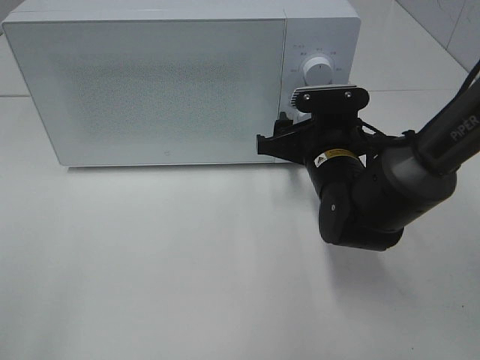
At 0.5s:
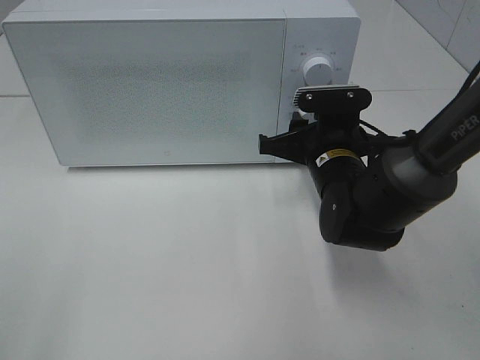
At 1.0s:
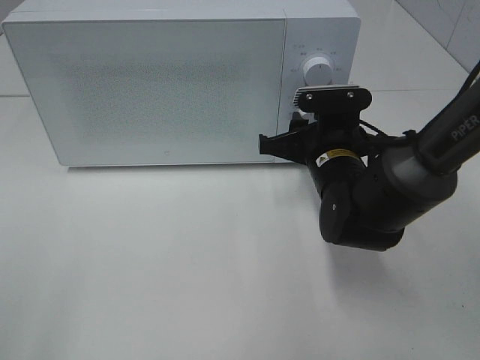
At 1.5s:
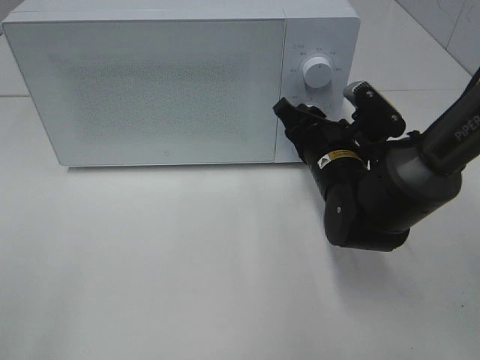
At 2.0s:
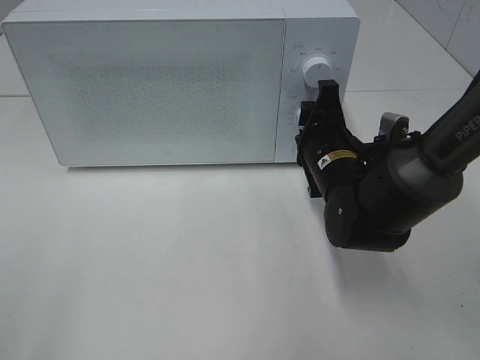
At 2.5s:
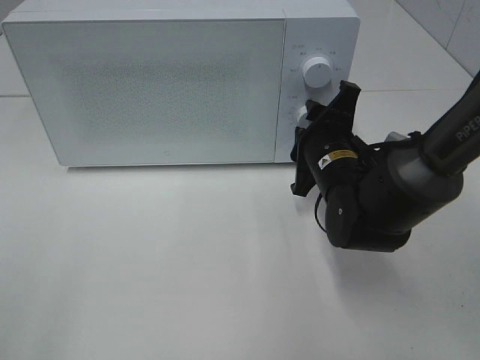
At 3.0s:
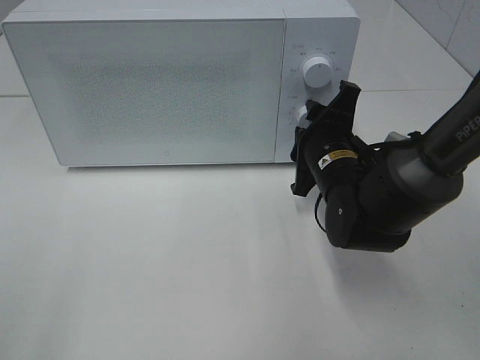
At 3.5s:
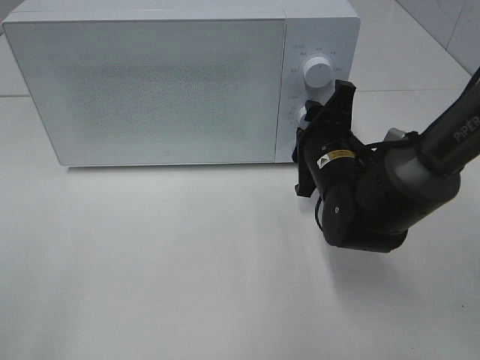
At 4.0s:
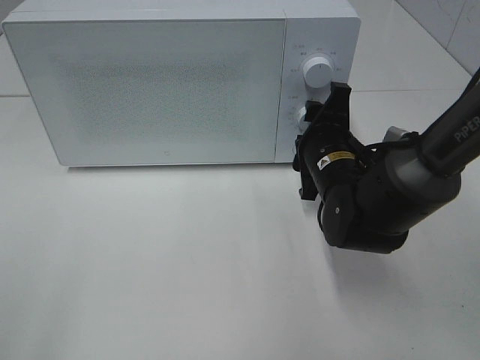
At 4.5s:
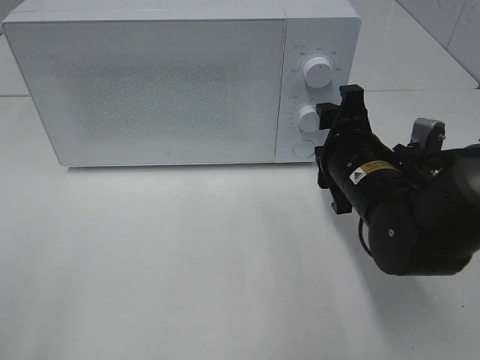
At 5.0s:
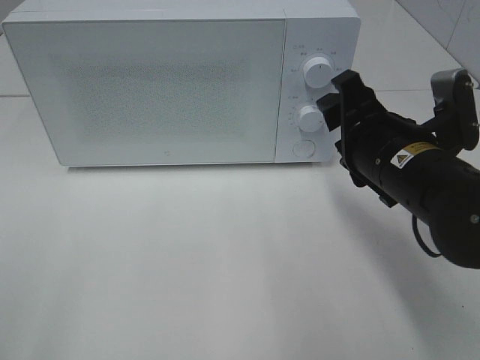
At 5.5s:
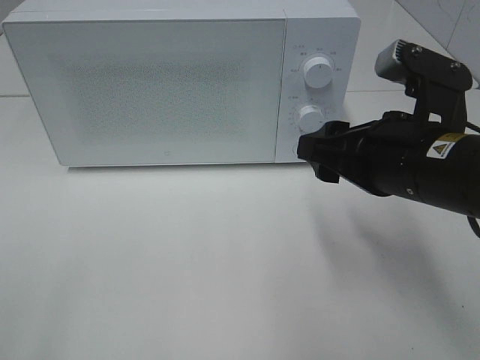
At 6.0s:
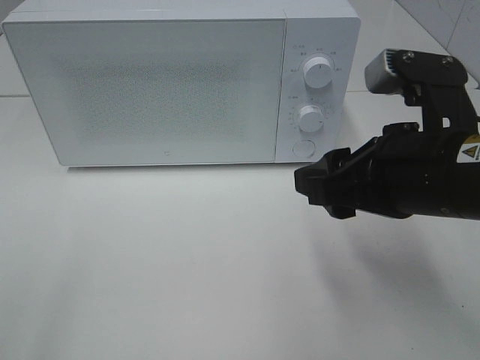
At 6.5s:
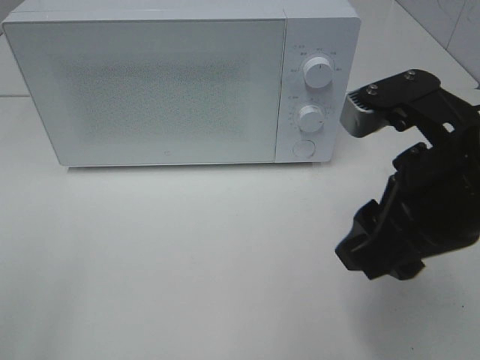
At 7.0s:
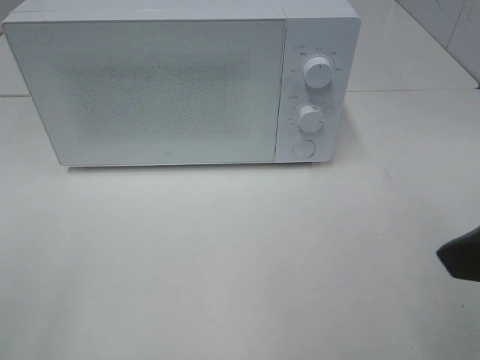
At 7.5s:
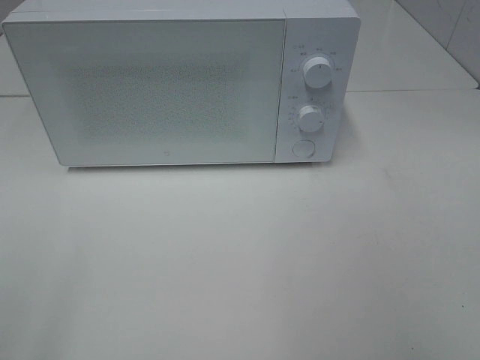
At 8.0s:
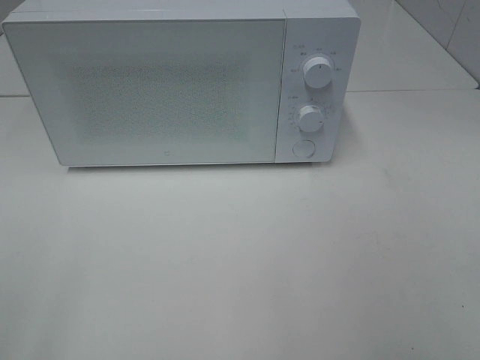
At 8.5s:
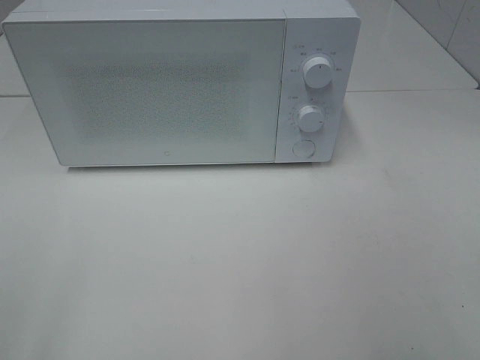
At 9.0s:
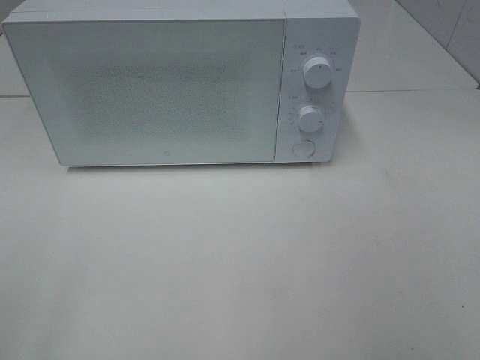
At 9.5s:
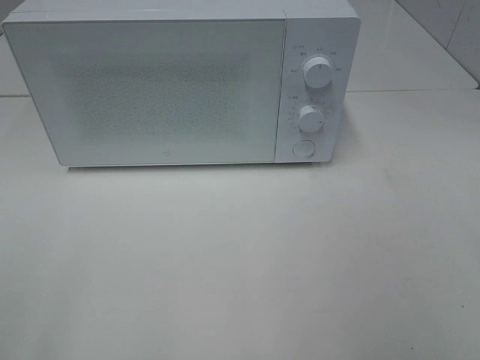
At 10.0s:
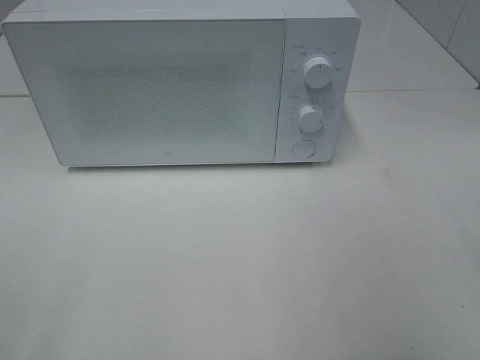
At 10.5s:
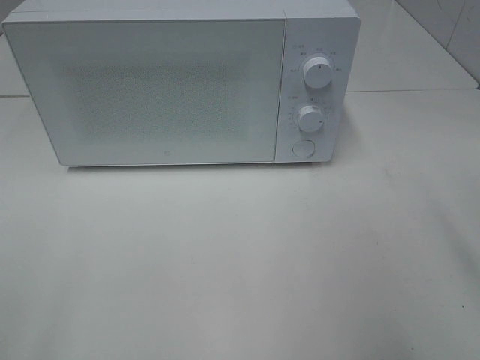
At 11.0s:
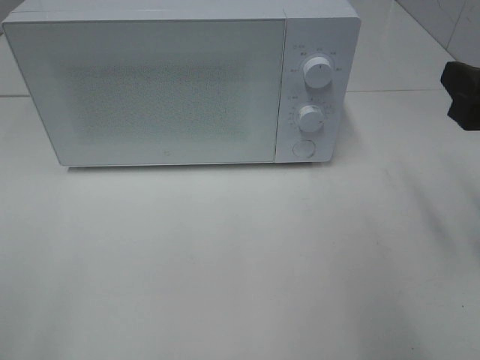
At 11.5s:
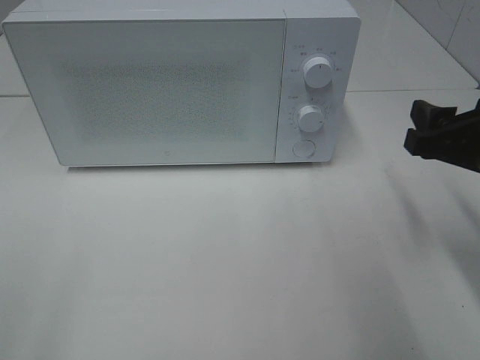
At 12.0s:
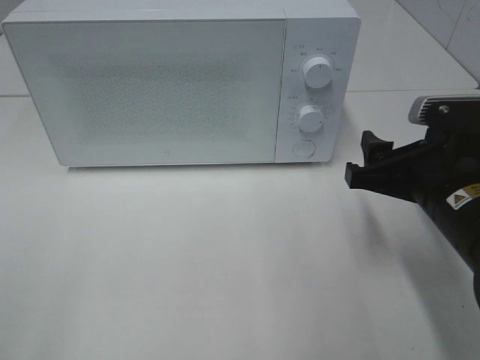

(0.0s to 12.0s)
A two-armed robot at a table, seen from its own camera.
Task of the whole recording: Heat the burger.
Step, 0.0s - 4.0s: Right hand: twist timer button.
2.0s - 4.0s: The grippers make only small movements.
4.0s - 6.0s: The right gripper heads backward and upward, covering approximately 20 cm.
6.0s - 8.0s: The right gripper is displaced backward and to the right by about 20 cm.
10.0s - 12.0s: The right gripper is displaced downward, forward and to the left by some 20 cm.

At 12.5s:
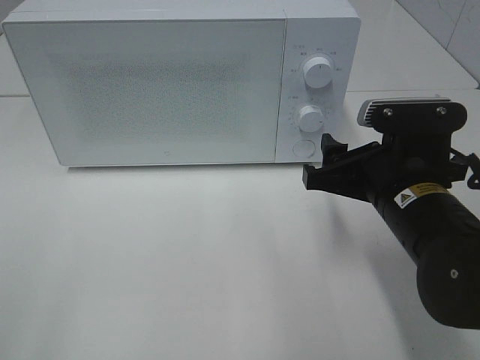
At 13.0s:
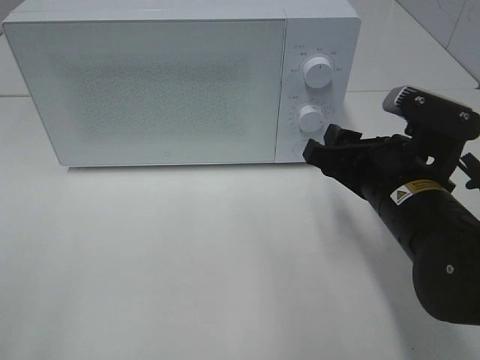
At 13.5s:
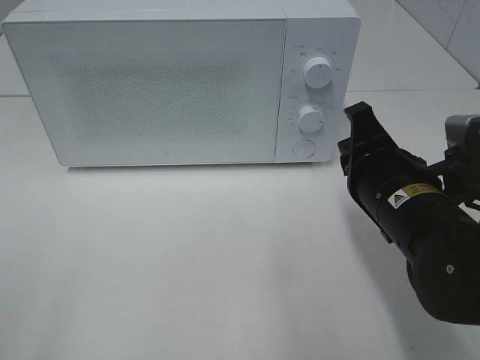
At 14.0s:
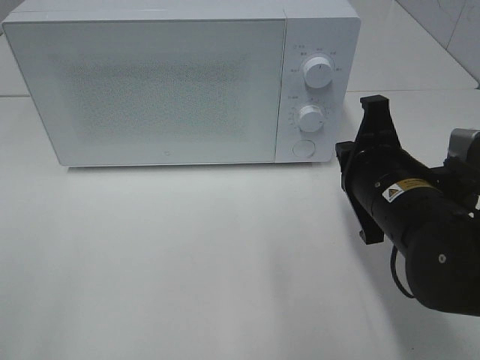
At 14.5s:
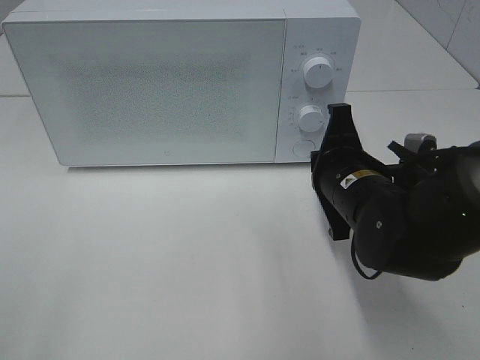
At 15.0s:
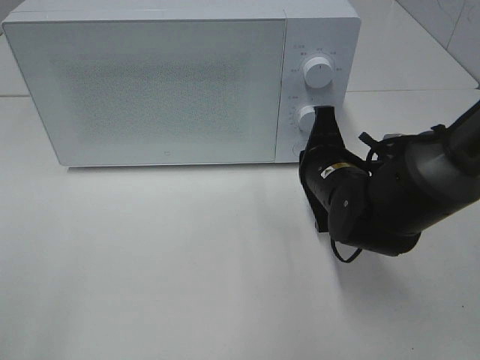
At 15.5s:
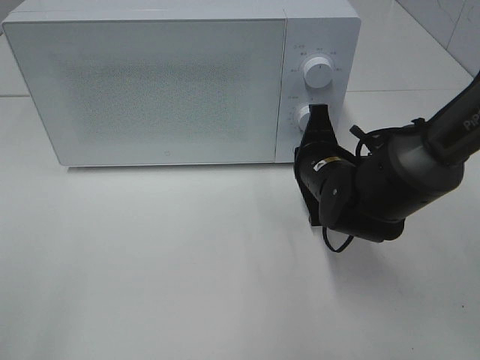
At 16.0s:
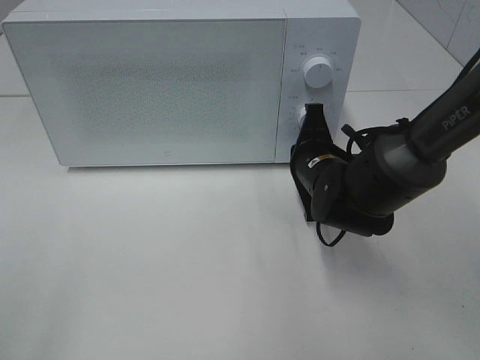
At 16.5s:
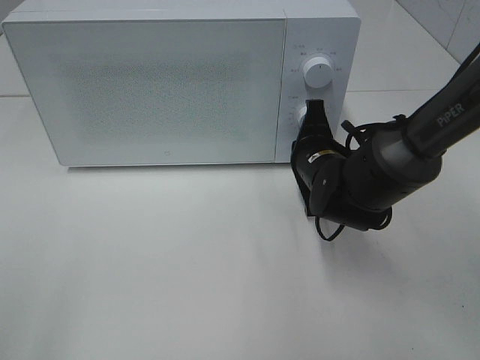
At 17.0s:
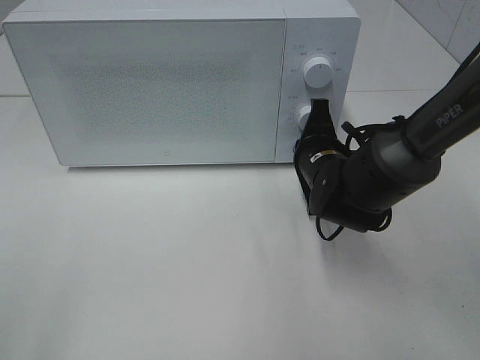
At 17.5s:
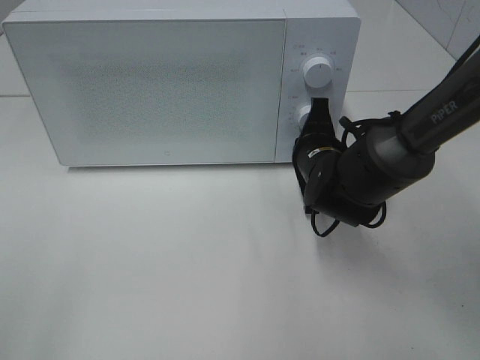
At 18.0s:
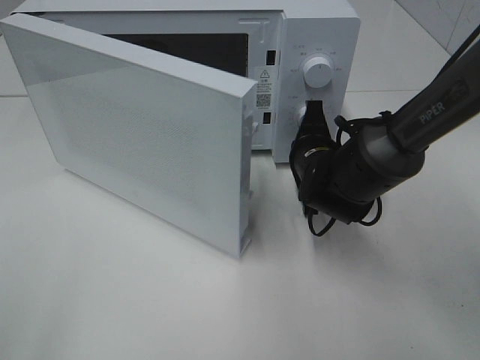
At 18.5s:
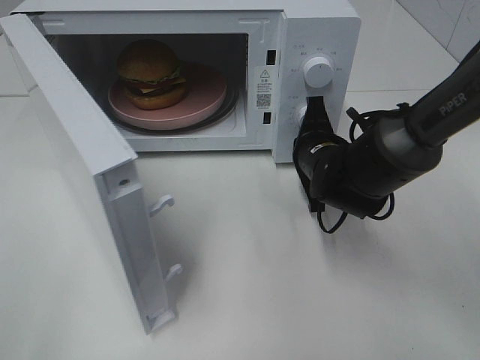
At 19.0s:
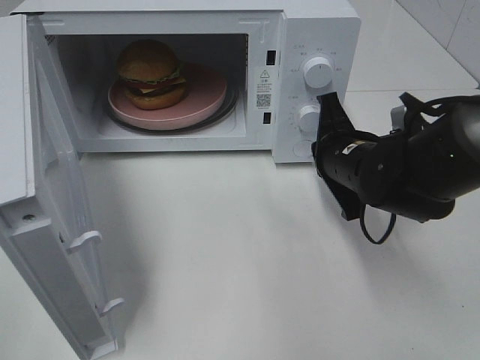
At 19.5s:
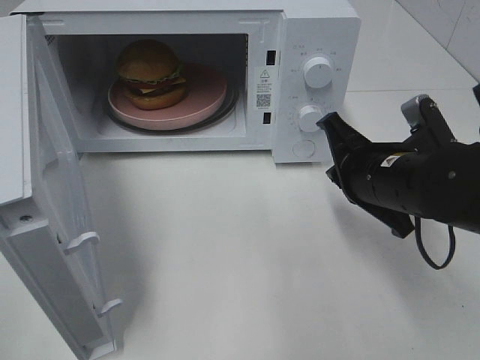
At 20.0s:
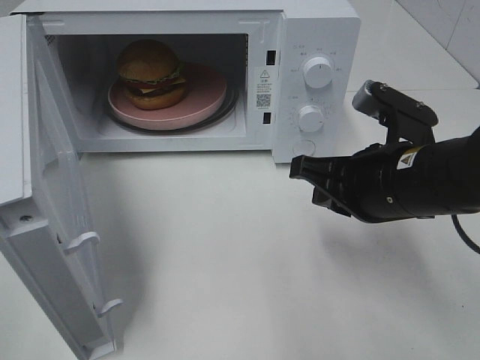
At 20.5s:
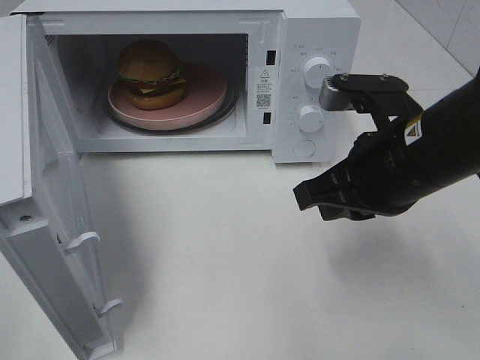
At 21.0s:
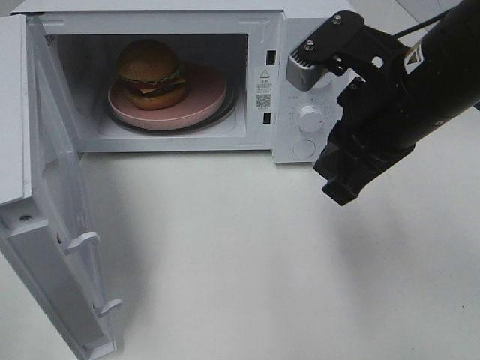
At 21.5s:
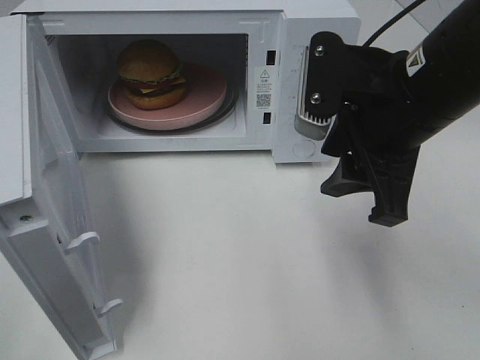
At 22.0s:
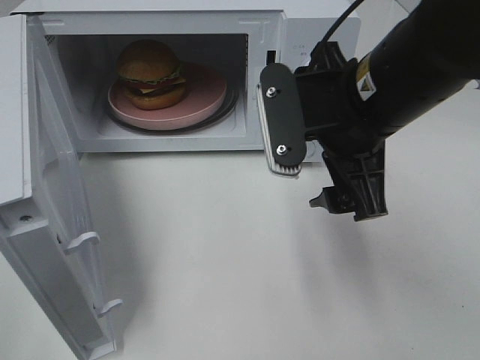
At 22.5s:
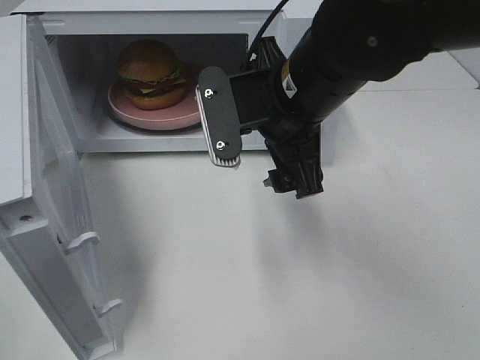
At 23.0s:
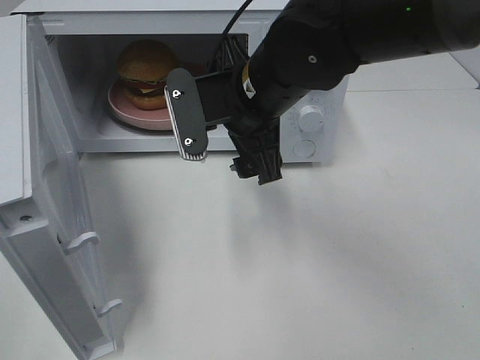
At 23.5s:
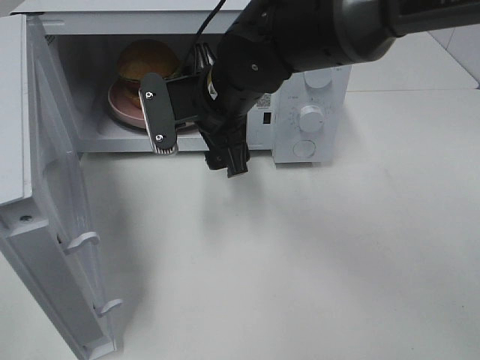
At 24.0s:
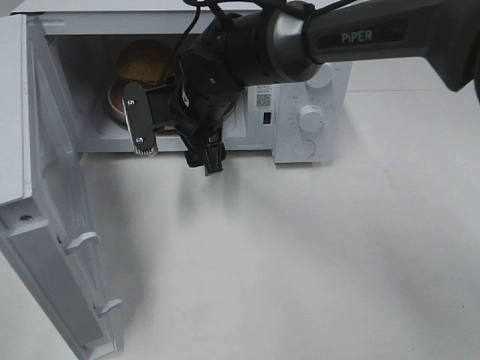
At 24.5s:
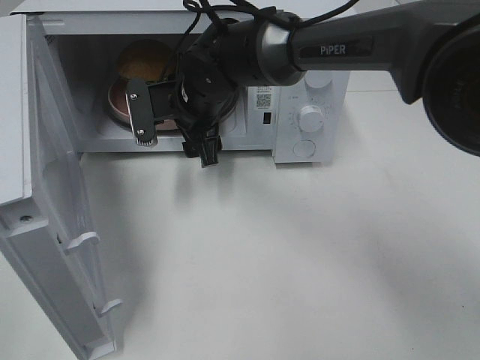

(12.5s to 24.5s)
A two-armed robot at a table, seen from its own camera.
Task of the whole recording: Heat the burger.
Step, 12.5s - 18.5s: Right hand: press the switch.
12.5s - 14.5s: The right gripper shifts by roughly 5 cm, and closes its fingers.
14.5s - 16.5s: The right gripper goes roughly 5 cm forward.
18.5s - 20.5s: The right gripper moves upward and backward, some 20 cm.
20.5s - 22.5s: The right gripper travels to the left by approximately 10 cm, and opens its fingers.
22.5s - 24.5s: The right gripper moves forward, to the left and downward, about 20 cm.

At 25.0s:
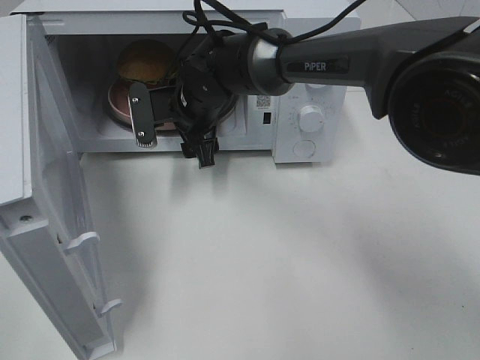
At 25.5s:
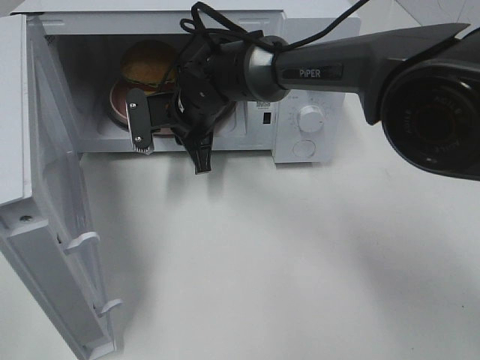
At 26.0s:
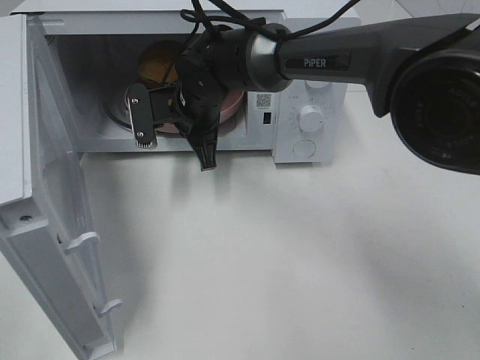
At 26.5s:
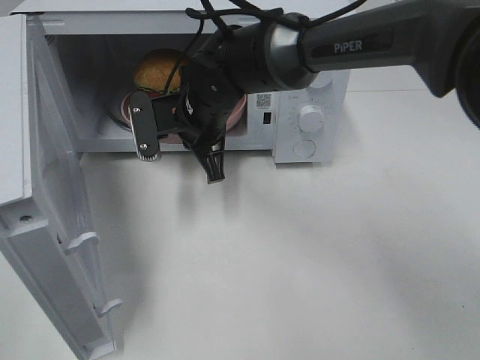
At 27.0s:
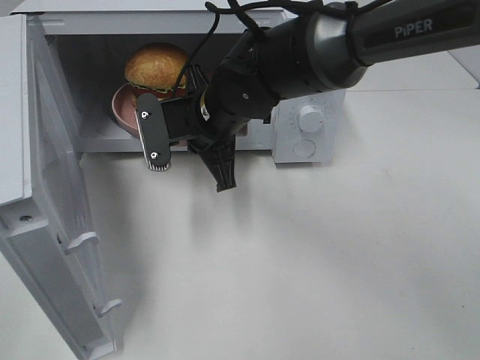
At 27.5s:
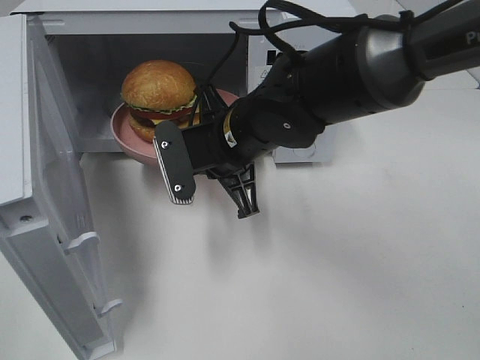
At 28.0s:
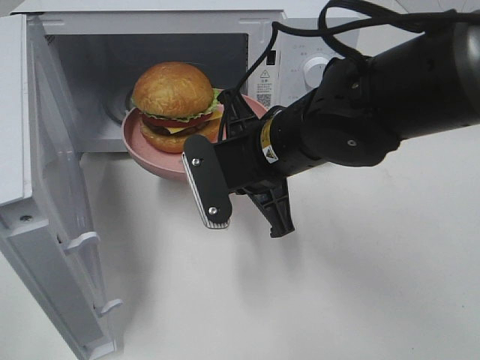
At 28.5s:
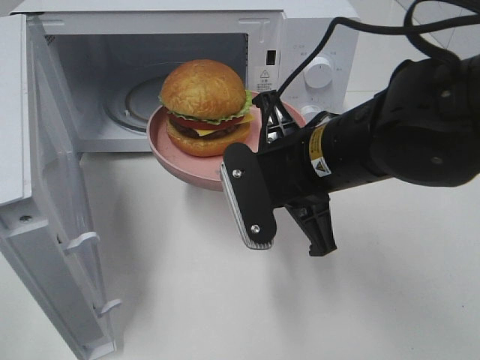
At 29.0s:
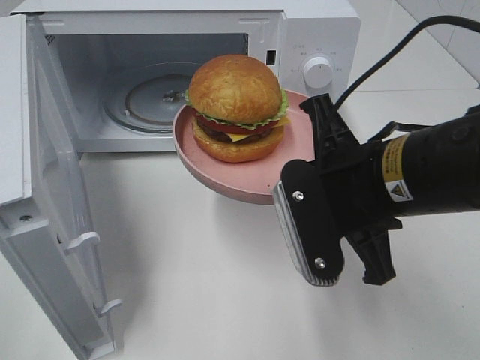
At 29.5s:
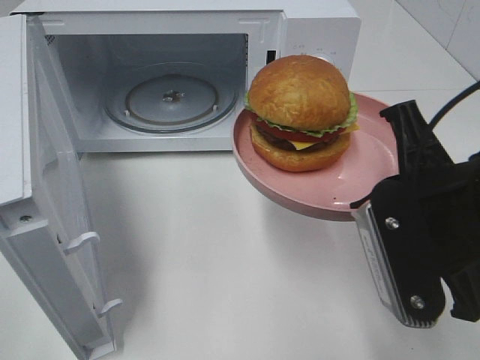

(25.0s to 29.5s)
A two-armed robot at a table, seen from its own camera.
Task of the whole recording: Heat the burger.
25.0s - 27.0s: The right gripper goes roughly 5 cm backward, and closes.
27.0s - 29.5s: The right gripper goes about 25 cm backward and to the right.
